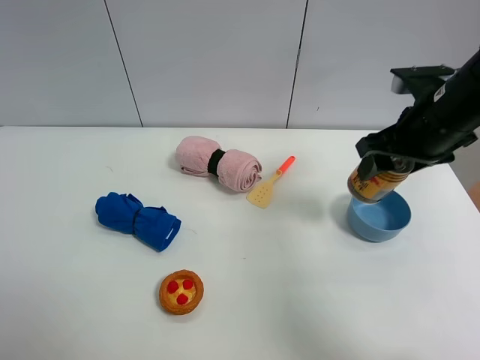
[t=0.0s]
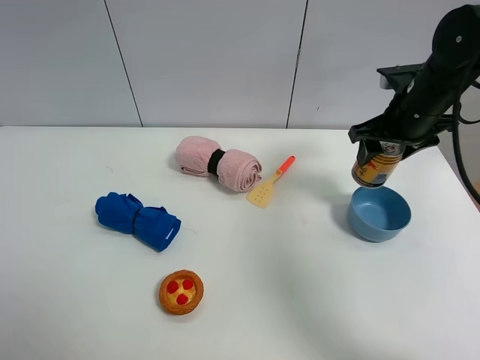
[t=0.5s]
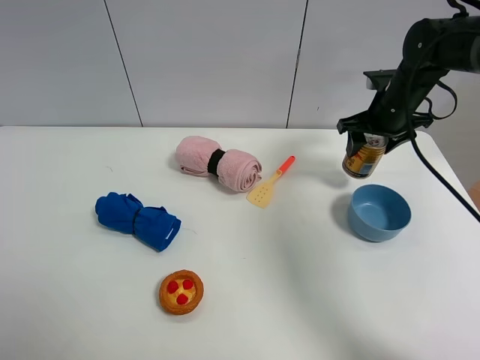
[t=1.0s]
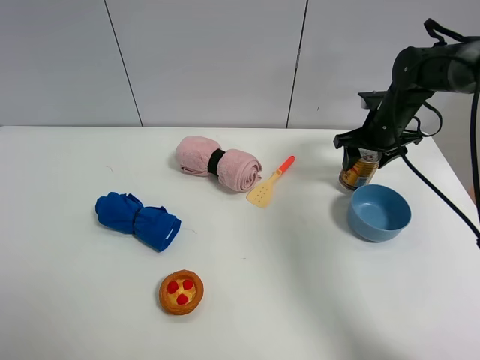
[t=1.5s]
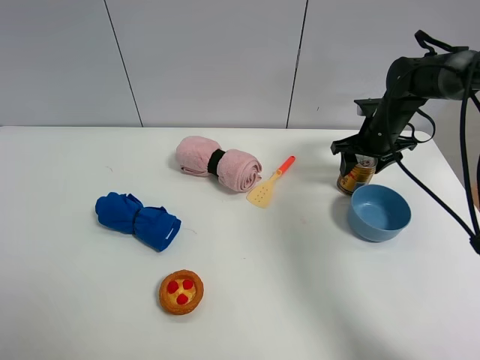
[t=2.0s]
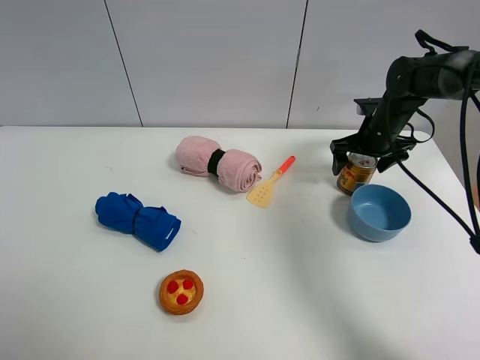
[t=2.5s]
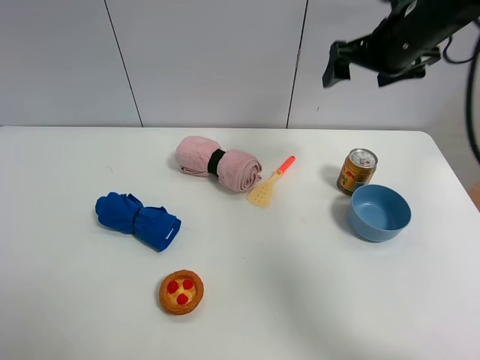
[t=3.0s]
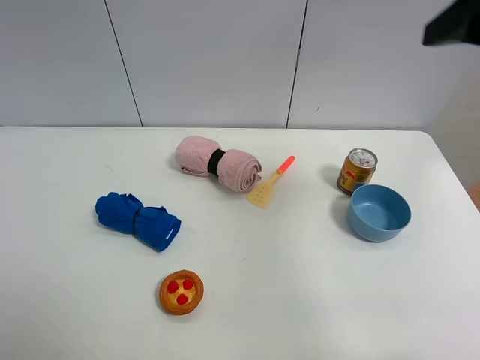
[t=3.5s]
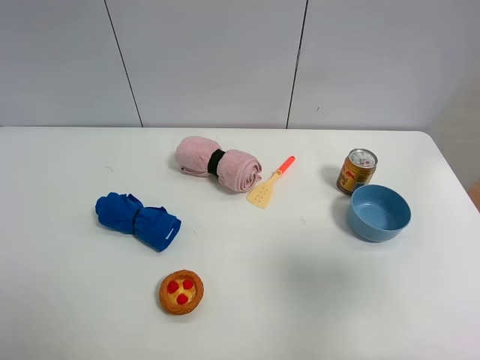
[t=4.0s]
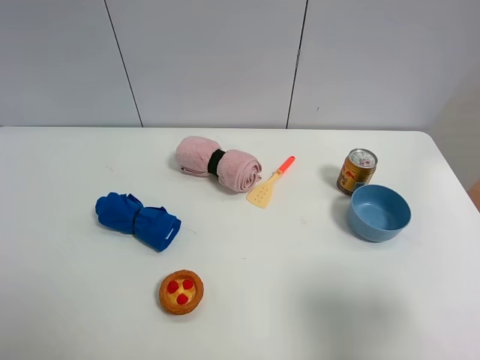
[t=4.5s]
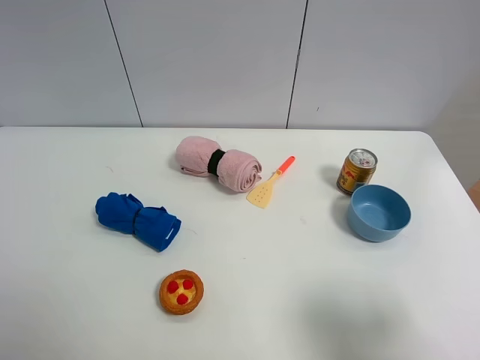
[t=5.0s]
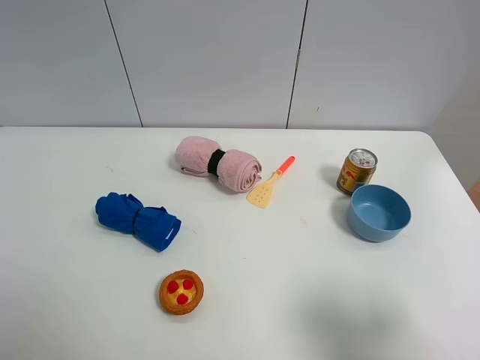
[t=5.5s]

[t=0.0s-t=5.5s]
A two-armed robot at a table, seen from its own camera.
Task of the whole recording: the gripper move the object.
Step, t=0.0s to t=2.5s: Place the red bull on the table with the right gripper.
t=0.0s to t=2.0s: The right gripper shifts approximately 20 cm forward and downward.
t=2.0s to t=3.5s: The right gripper moves upward and backward, roughly 35 cm, and opens up.
t=3.5s to t=5.5s: The right gripper goes roughly 25 cm backward and downward.

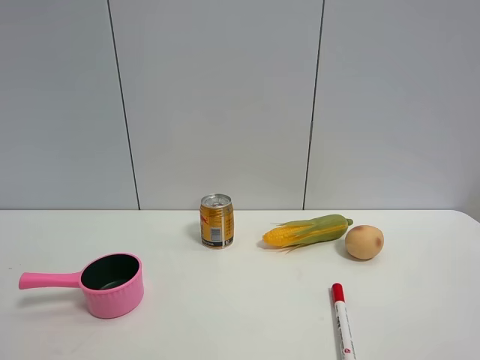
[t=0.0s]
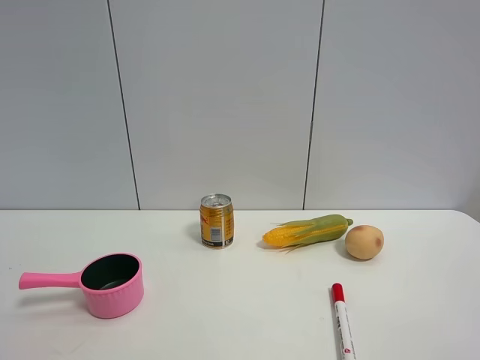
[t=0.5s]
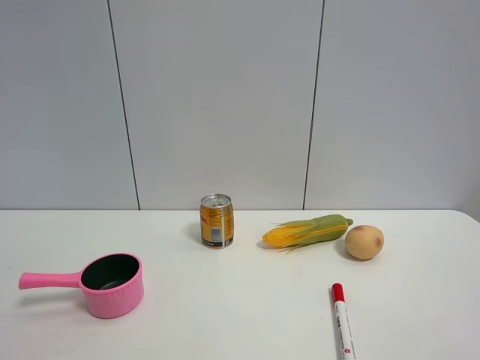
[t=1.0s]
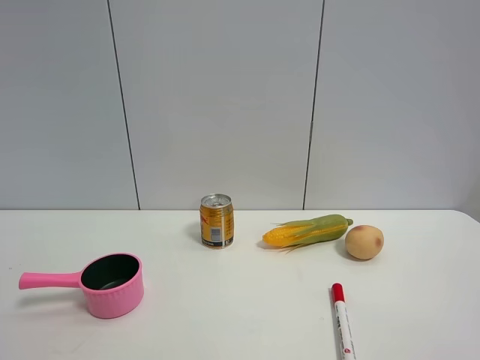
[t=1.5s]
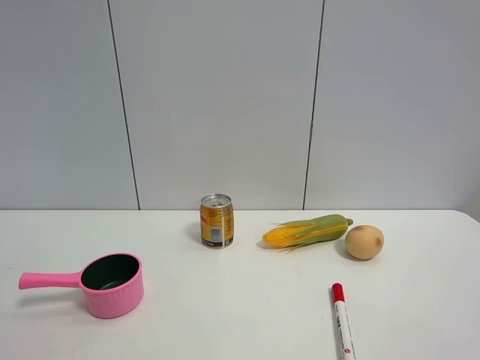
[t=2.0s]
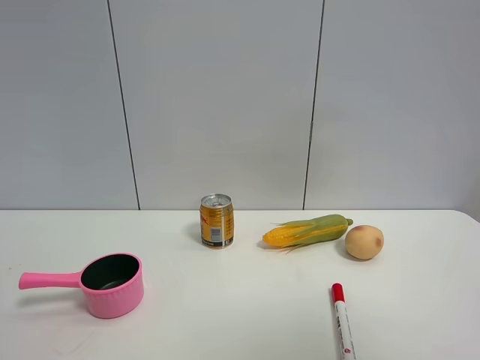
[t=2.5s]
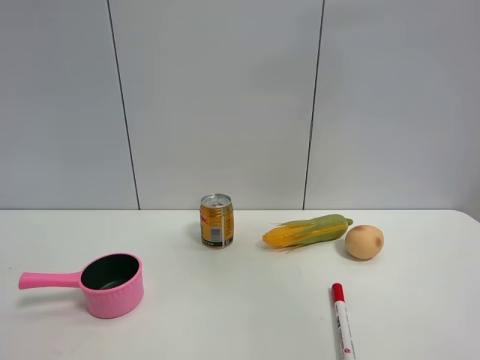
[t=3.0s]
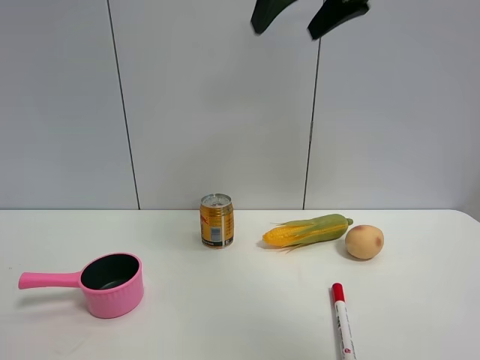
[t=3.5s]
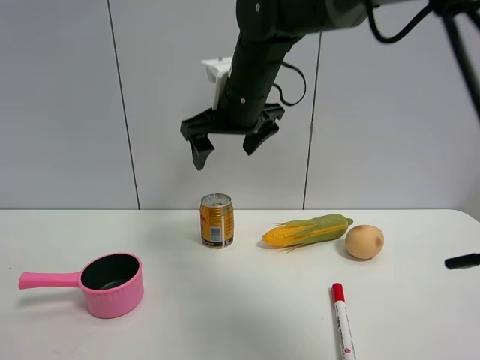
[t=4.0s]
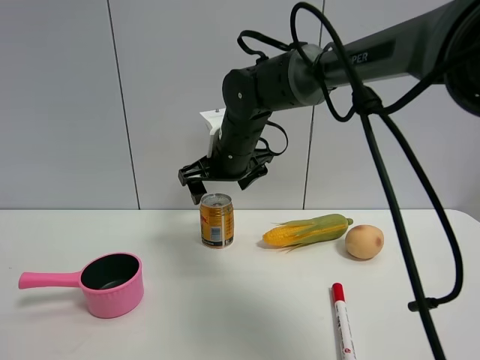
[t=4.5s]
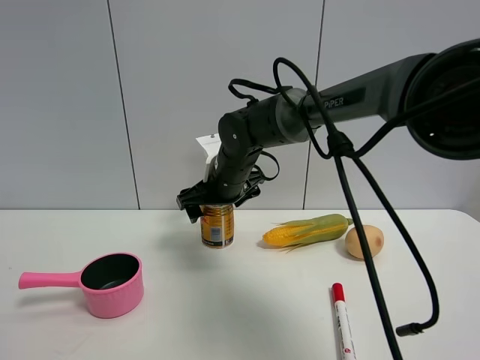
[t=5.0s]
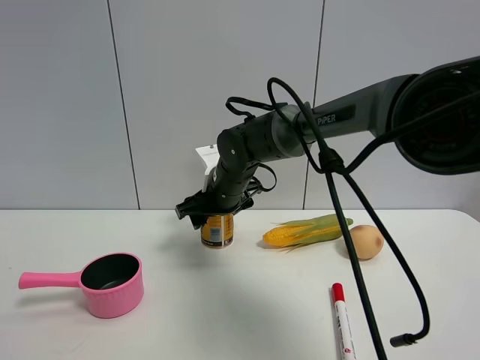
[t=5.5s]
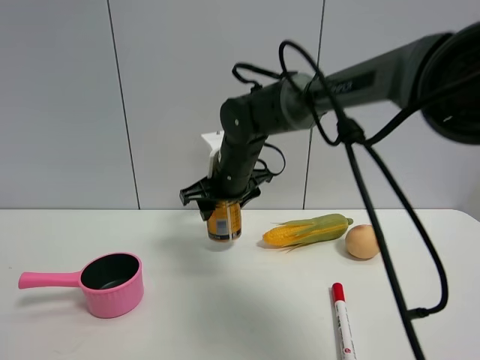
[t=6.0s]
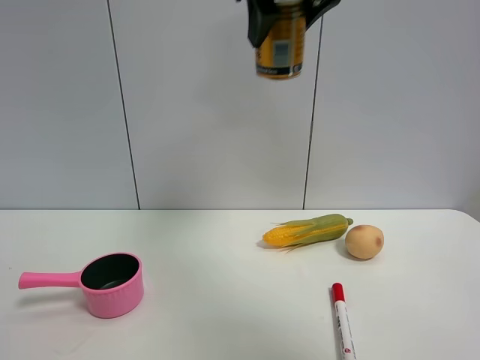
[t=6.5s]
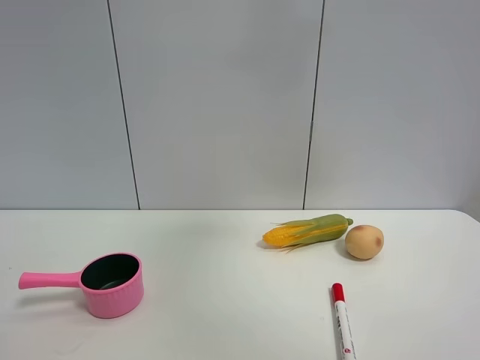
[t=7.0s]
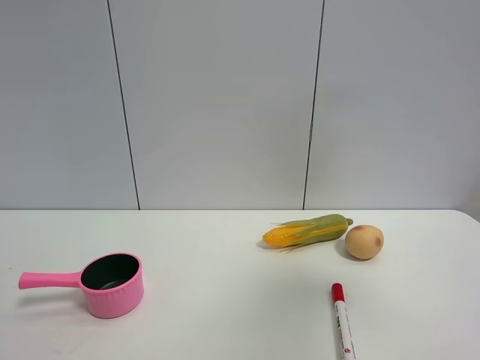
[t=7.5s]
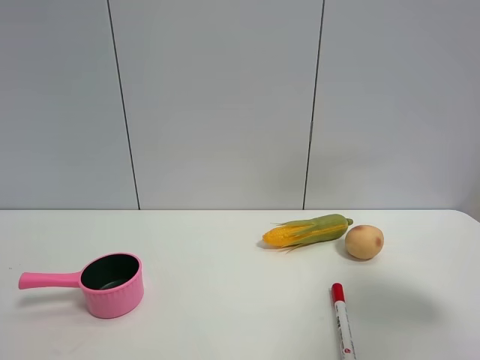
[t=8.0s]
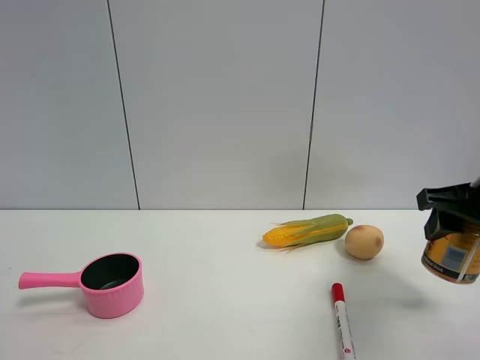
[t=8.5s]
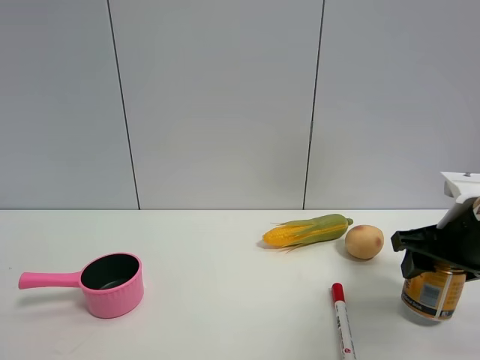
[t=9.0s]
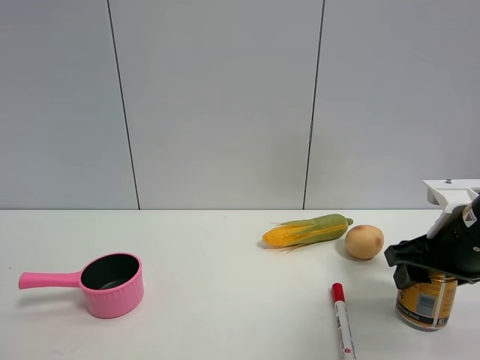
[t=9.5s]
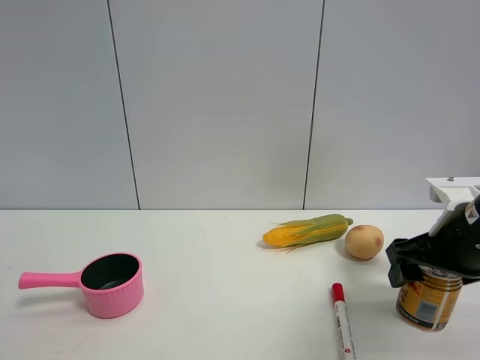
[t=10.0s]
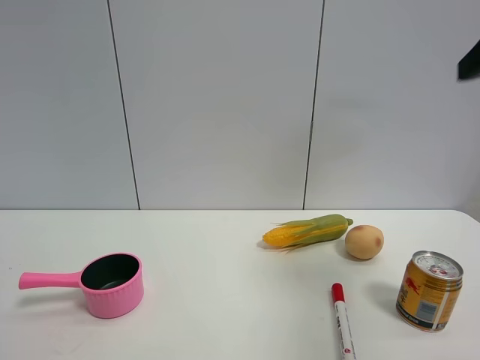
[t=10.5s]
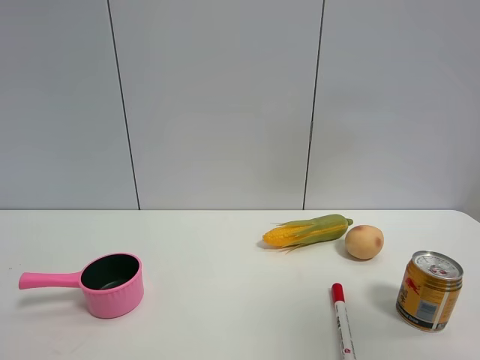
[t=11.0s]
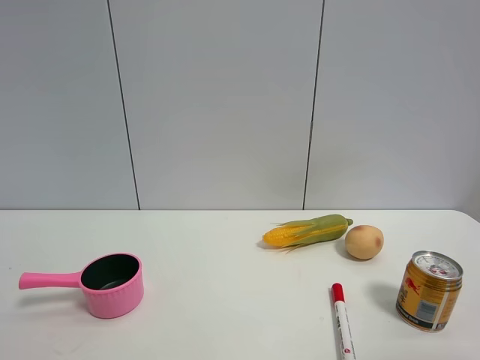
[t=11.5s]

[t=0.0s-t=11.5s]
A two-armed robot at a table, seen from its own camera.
Task of the whole recording: the gripper move the object.
Step, t=0.0s to t=5.5s: Grasp the red bull with the right gripper.
Step, t=6.0s to t=10.0s: Place the red bull on the table with the right gripper.
t=2.0s to t=4.0s: The right gripper heads forward and to the left, covering some 50 cm.
t=4.0s to t=6.0s: The right gripper travels downward by approximately 10 cm, and closes its fingers.
t=6.0s to t=7.5s: The right gripper goes some 40 cm backward, to the right and upward.
t=7.5s to t=9.5s: The right gripper goes approximately 30 cm downward and forward.
t=9.5s to t=11.5s: The right gripper goes about 35 cm backward and upward, and opens up.

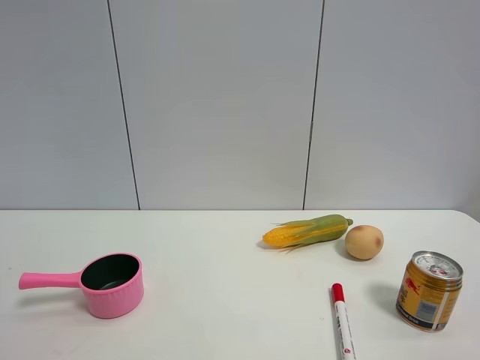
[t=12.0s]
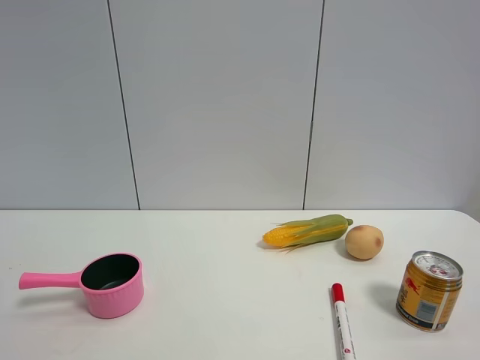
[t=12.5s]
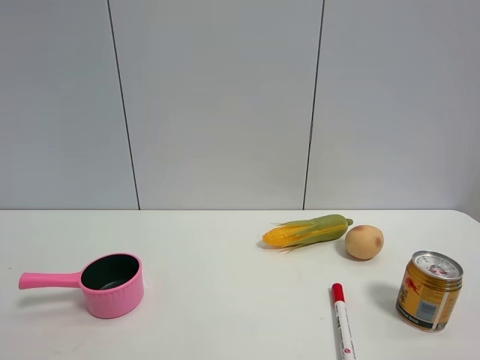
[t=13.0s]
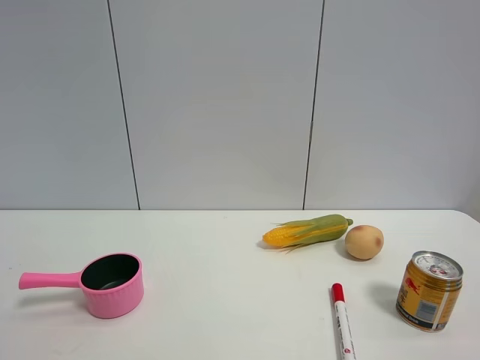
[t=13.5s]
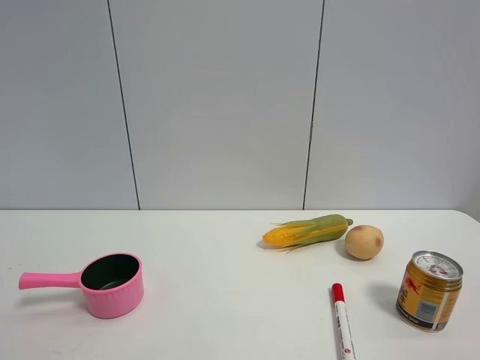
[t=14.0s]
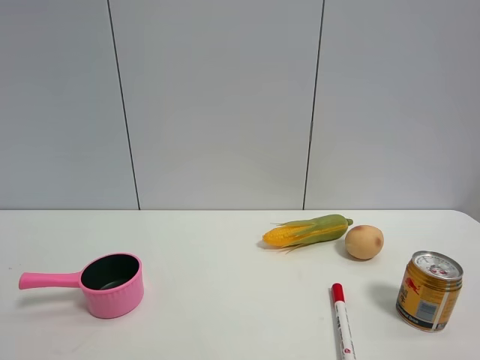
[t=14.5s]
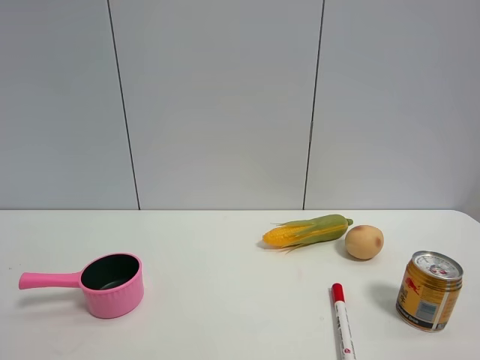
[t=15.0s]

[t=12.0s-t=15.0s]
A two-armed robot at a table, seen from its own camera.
Task of the whole recording: the gripper move the object.
t=13.5s to t=15.0s: Both grippers stay about where they are.

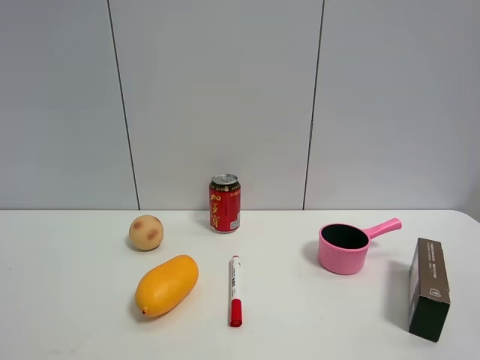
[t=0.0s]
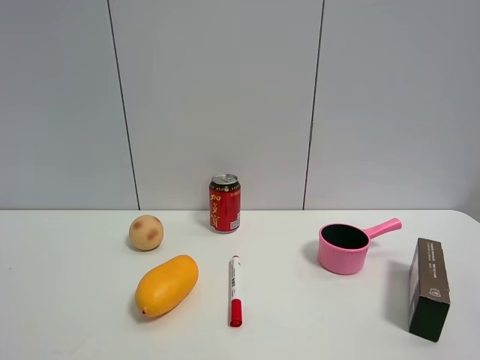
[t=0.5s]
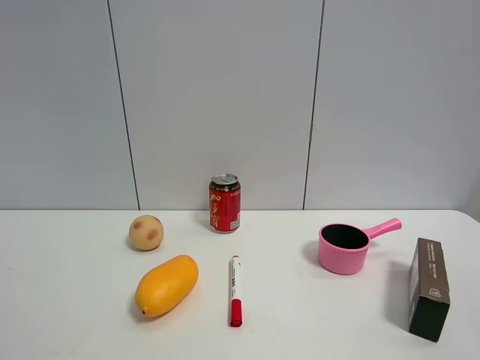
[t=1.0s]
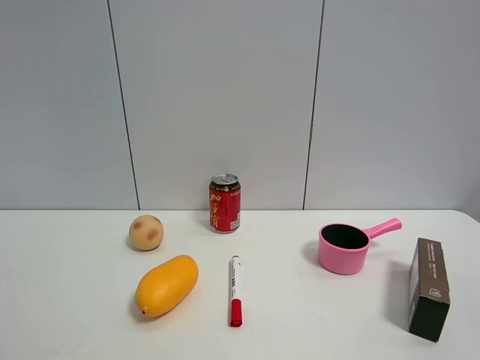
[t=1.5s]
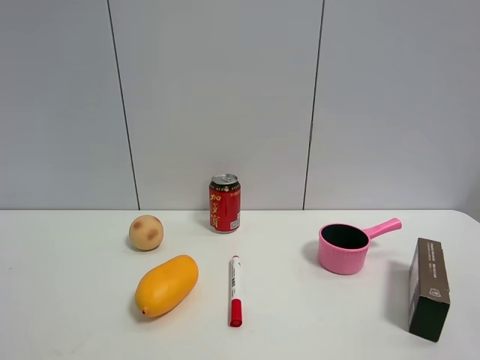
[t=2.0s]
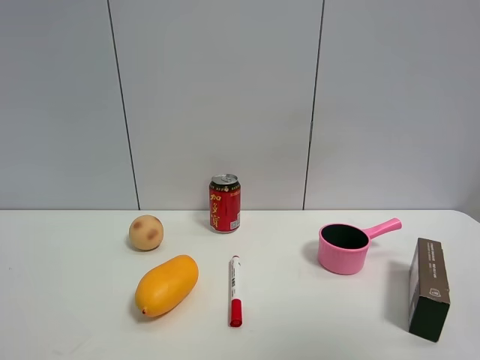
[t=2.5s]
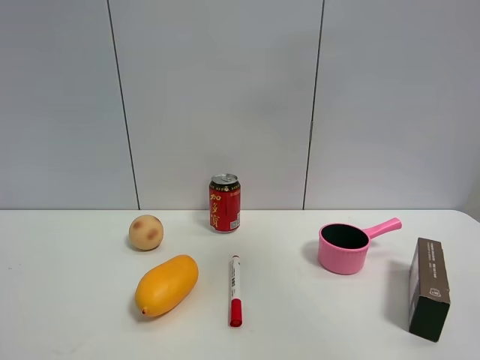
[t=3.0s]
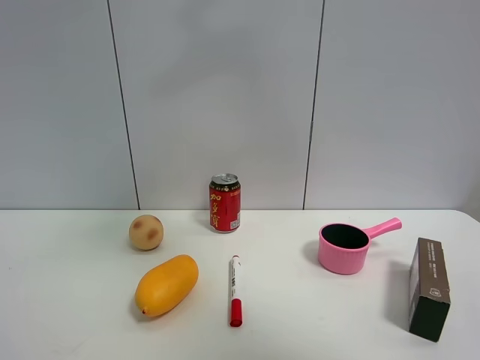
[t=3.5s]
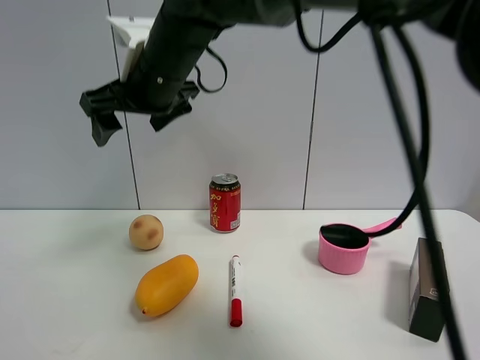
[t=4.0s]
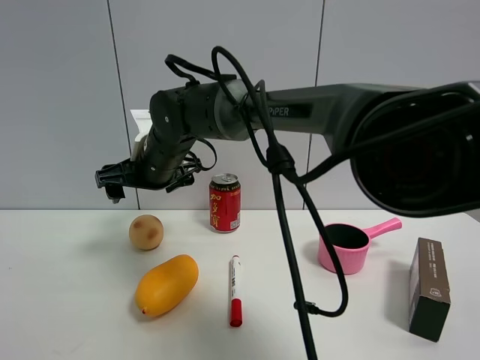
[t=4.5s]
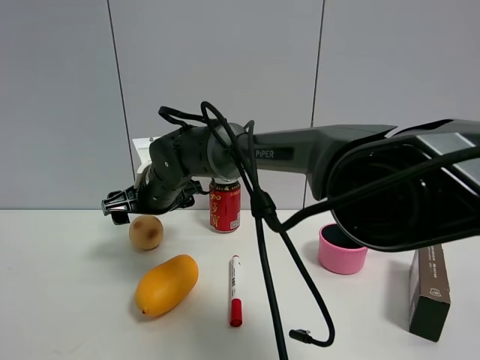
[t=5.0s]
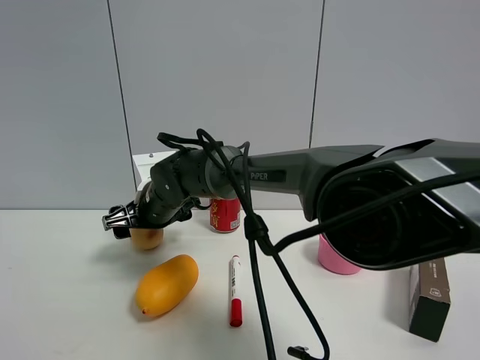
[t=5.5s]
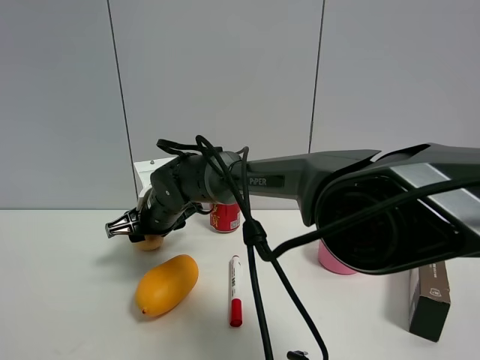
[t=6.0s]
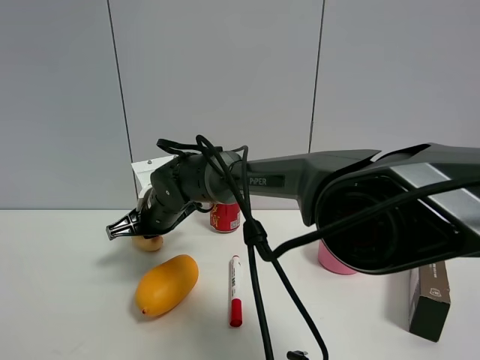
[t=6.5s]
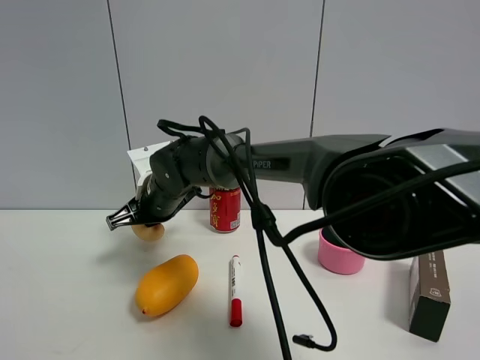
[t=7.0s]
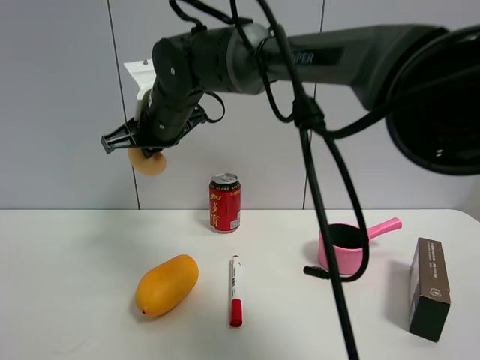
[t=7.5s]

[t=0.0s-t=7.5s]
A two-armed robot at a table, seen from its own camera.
Task of the whole recording: the gripper move the object.
Step, t=0.0s to t=6.0s: Grasp the egg tart with the right gripper.
t=2.0s to t=4.0s: The right gripper goes roughly 50 cm to the left and forward.
t=4.0s to t=5.5s: The right gripper is displaced downward by about 25 cm.
t=5.5s to t=7.5s: The right gripper travels upward by some 10 cm, and closes.
